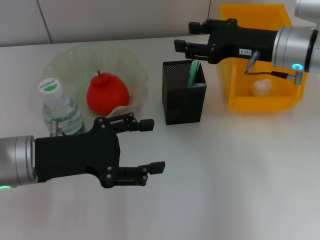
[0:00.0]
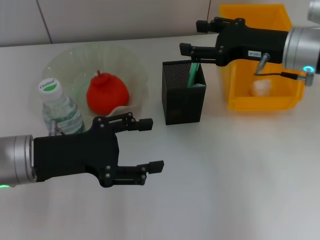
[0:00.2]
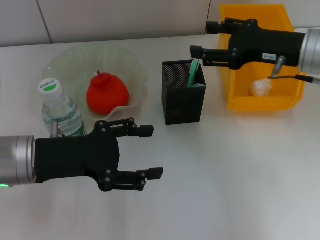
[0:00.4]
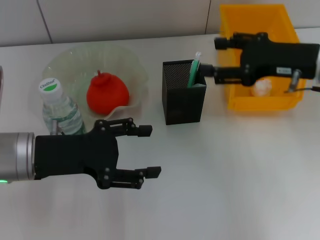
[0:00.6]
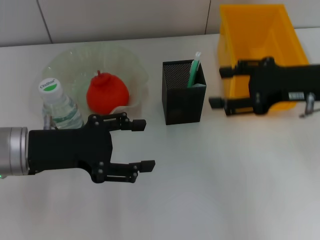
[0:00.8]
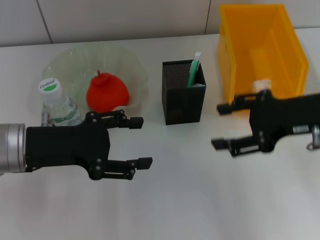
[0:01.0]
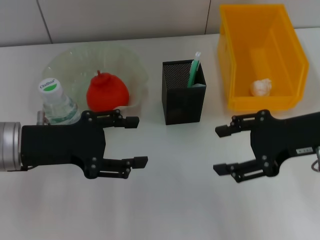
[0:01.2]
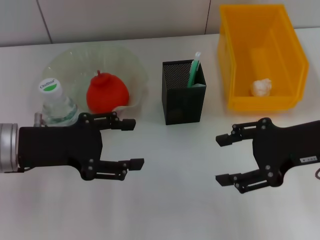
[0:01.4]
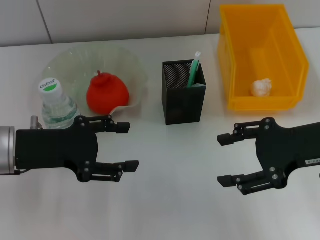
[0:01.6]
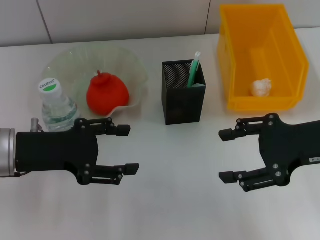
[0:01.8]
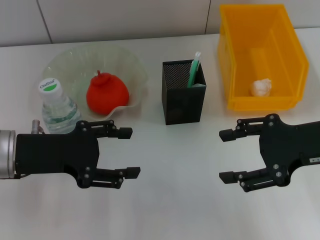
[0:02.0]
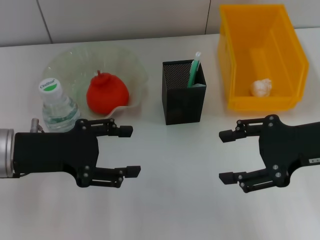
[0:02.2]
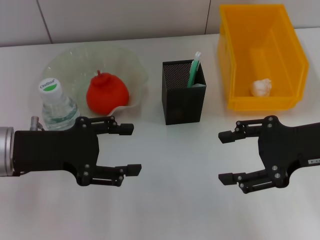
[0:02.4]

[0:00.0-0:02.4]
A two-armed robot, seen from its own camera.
0:00.0 to 0:01.2: The right gripper shifts some 10 cm backward, and opens up.
0:01.2 to 0:02.4: The grippers move only a little.
